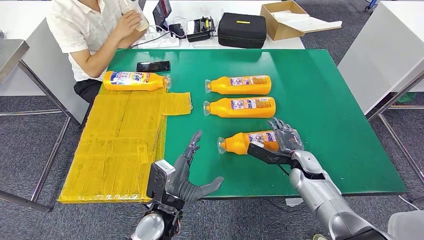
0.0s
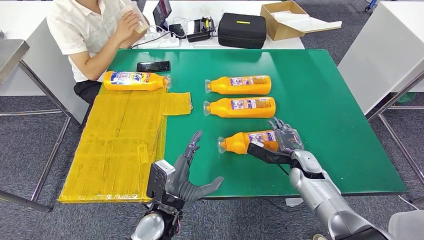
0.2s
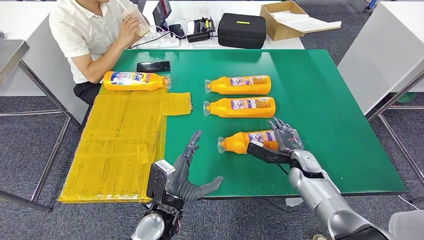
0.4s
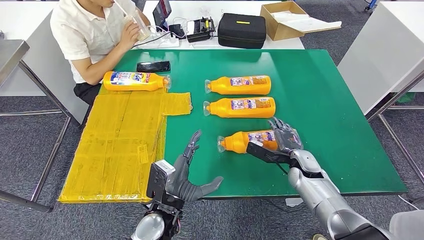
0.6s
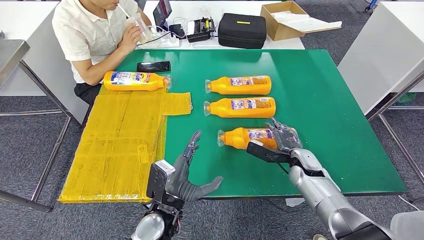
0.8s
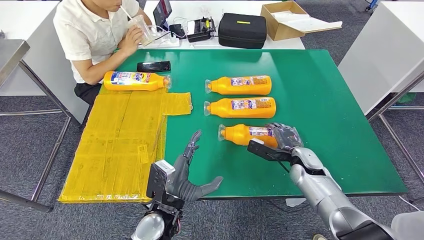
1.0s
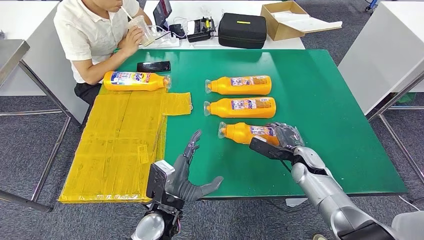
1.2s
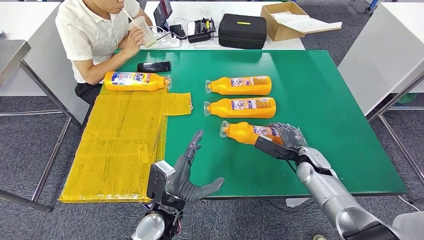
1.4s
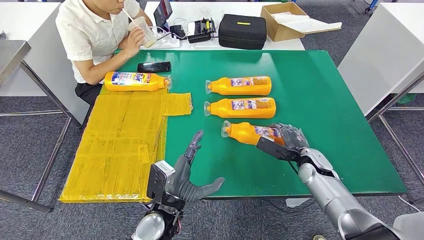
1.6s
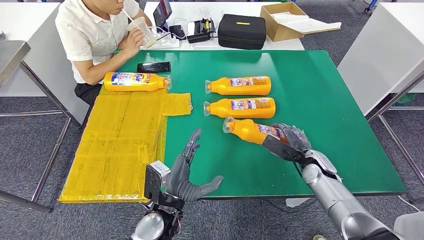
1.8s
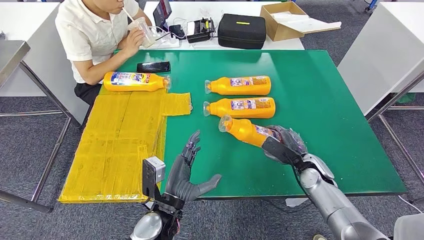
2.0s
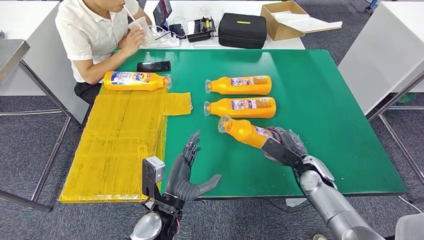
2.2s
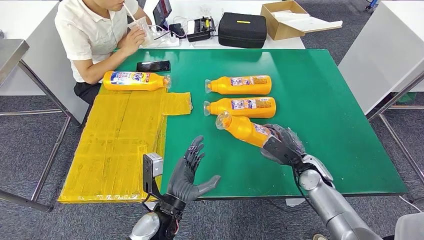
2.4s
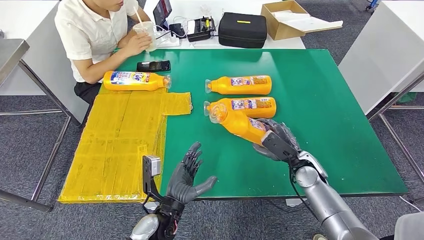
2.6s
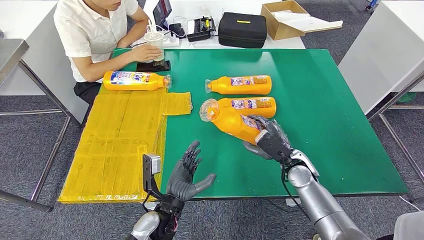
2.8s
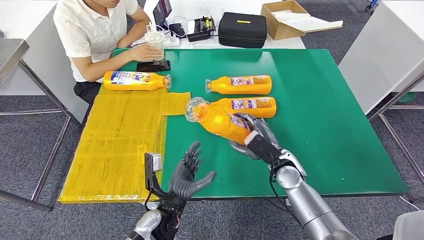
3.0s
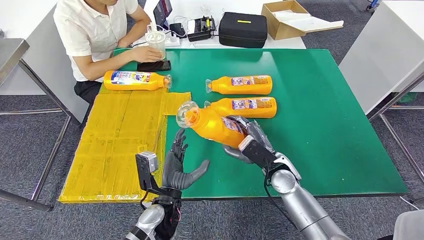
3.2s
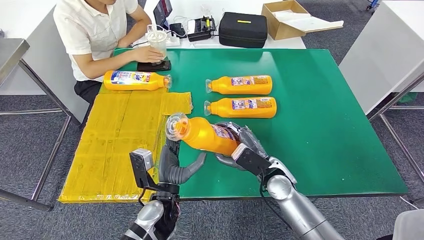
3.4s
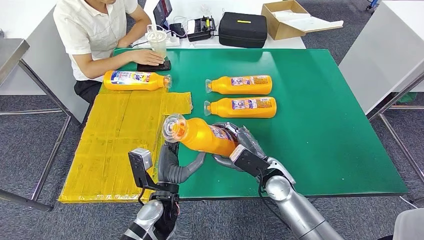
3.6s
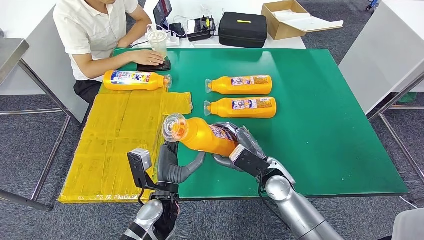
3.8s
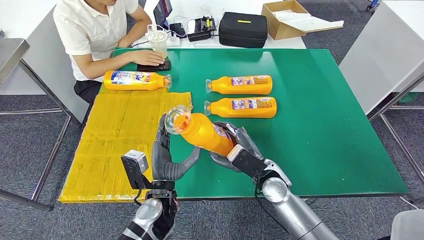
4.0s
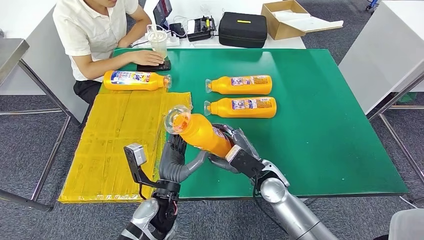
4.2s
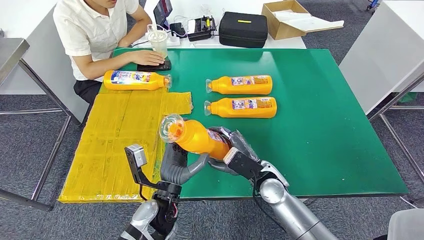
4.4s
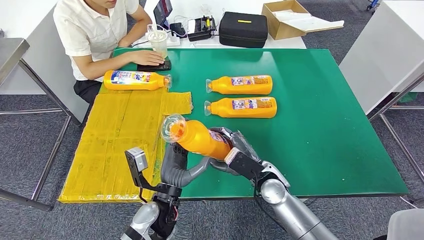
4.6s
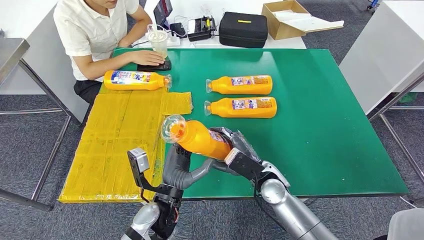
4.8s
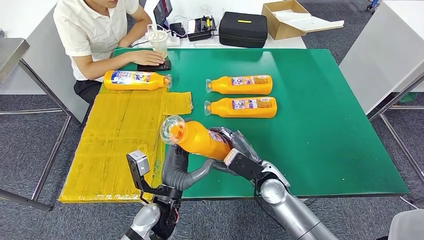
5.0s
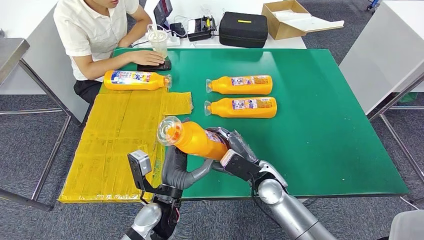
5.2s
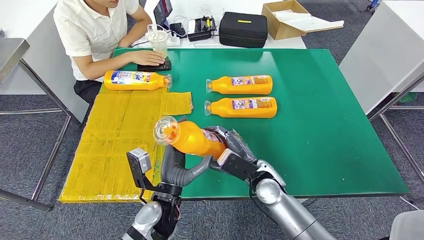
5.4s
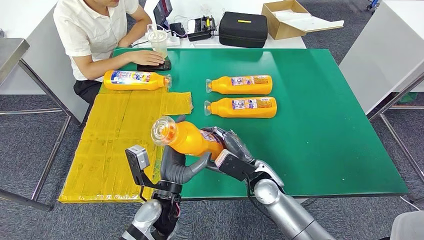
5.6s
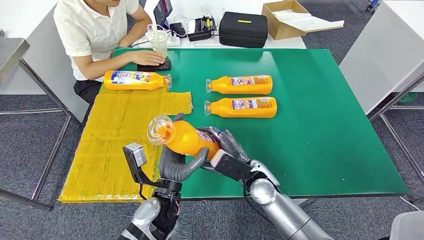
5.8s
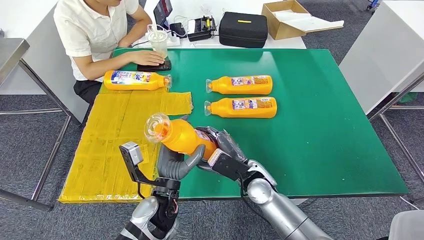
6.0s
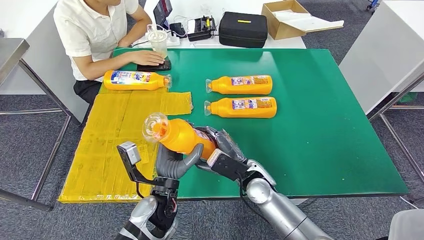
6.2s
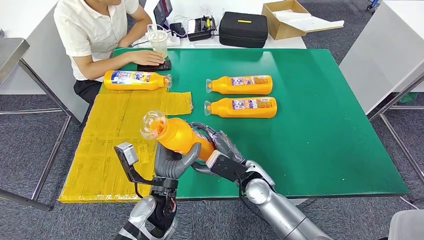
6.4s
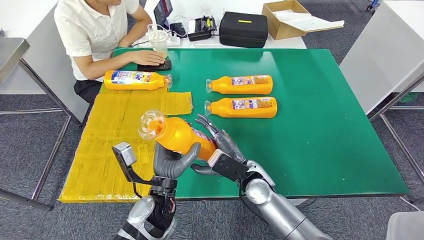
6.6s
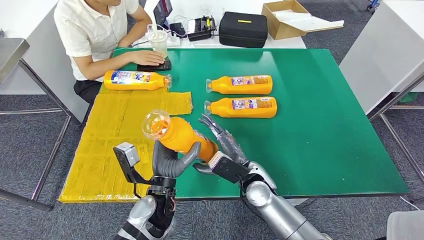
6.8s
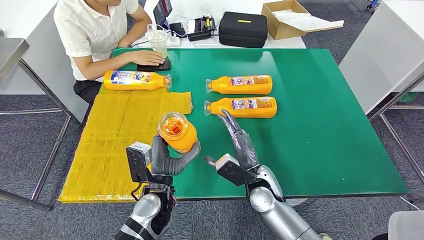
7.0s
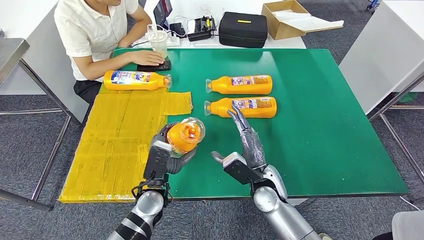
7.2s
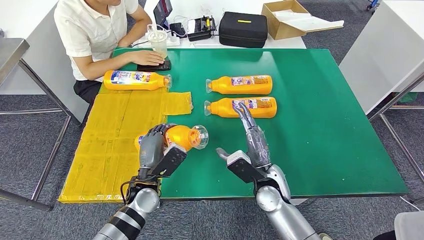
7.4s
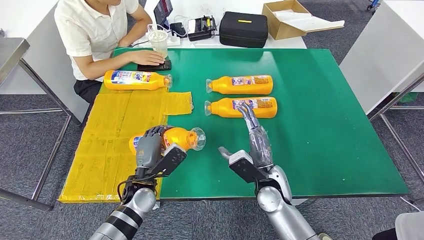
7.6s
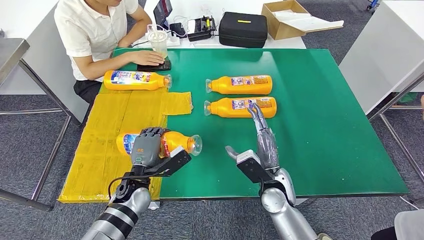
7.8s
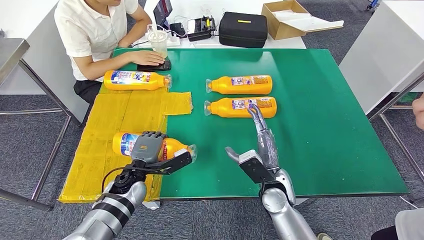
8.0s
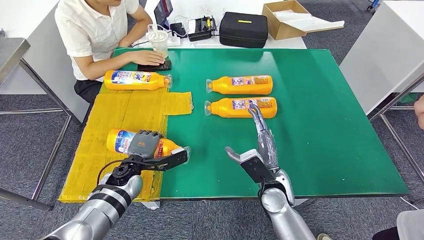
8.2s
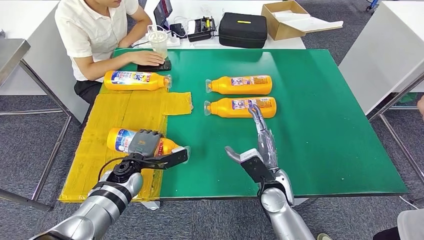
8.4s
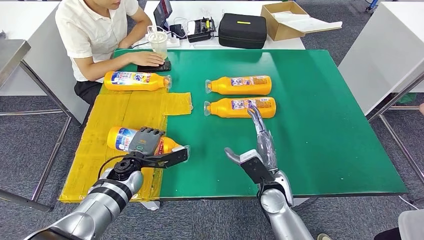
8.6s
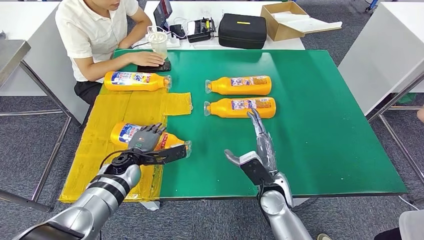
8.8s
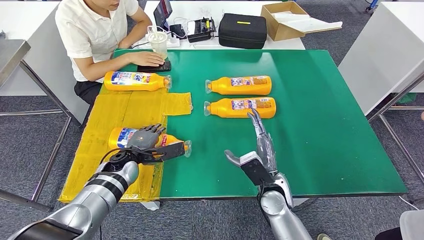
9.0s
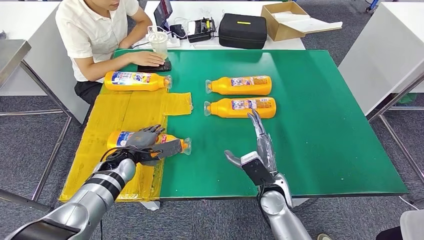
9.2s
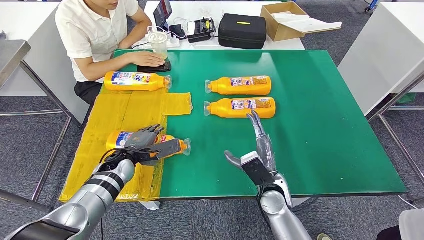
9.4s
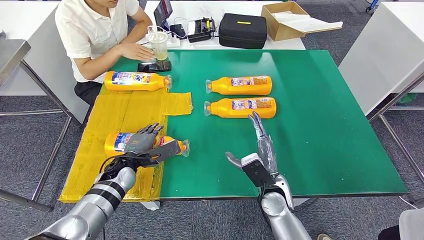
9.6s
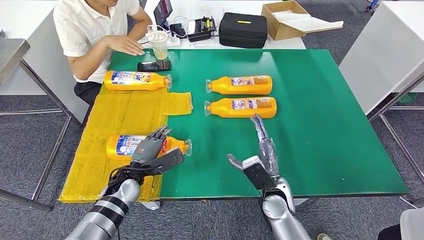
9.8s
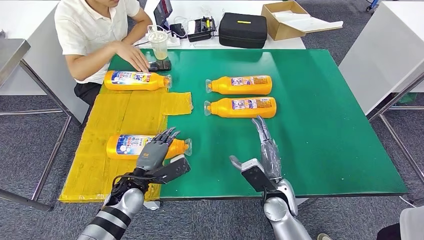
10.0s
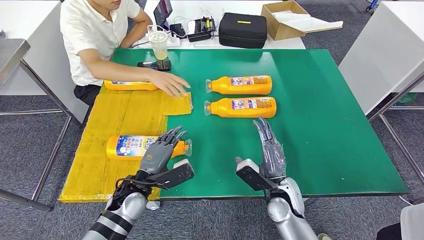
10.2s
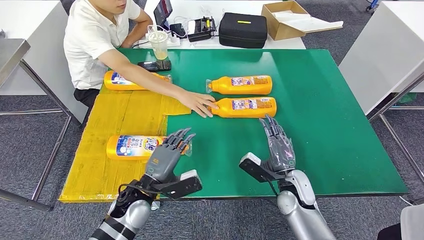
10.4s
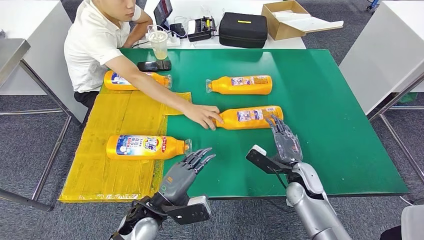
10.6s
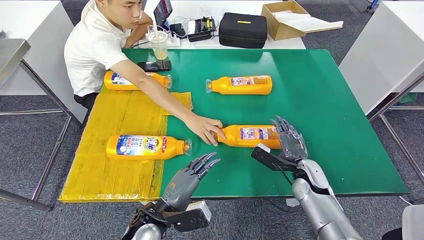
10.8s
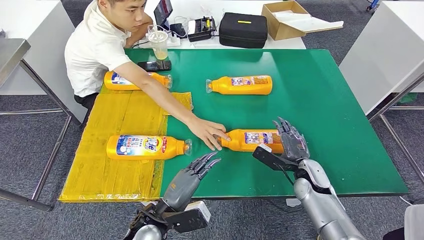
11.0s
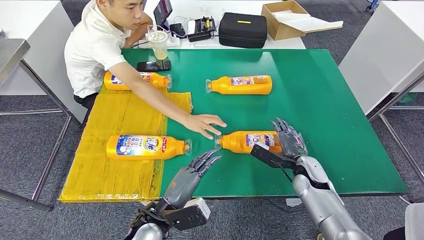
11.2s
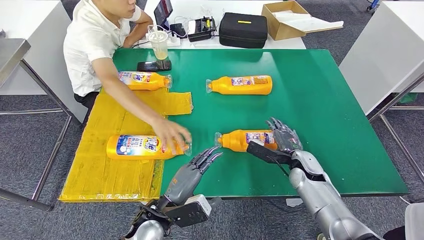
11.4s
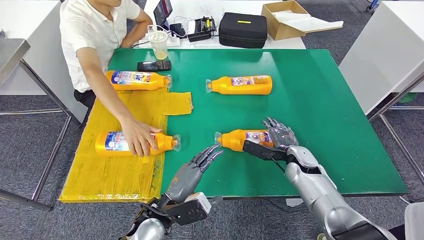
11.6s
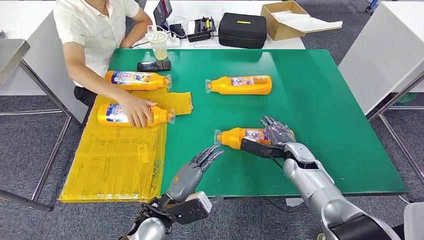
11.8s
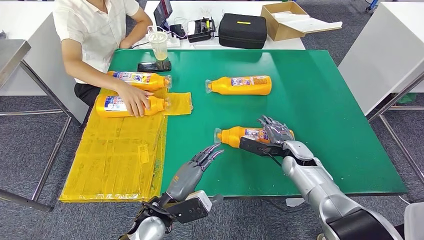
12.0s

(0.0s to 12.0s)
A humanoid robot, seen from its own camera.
Step, 0.0s - 4.0s: Pick up the fast-moving consumer goods bottle from the table.
Step, 4.2s - 9.0s: Flip the fast-moving consumer goods bottle to the front side.
0.0s - 1.6s: The hands stay close to where they were, moving slightly.
1.6s - 3.0s: The right hand shifts some 10 cm to the left.
3.0s - 4.4s: The right hand moves to the left, about 5 cm.
4.4s - 6.0s: The hands make only small movements.
6.0s - 7.6s: The left hand heads to the left and forward, covering about 10 cm.
7.6s - 9.0s: The left hand goes about 10 cm forward and to the left.

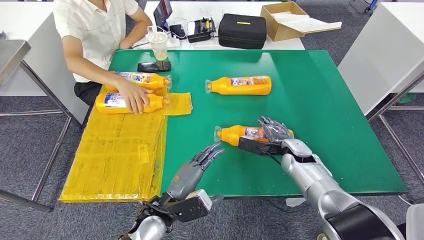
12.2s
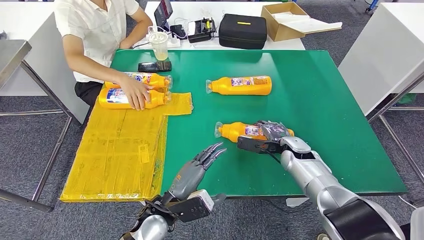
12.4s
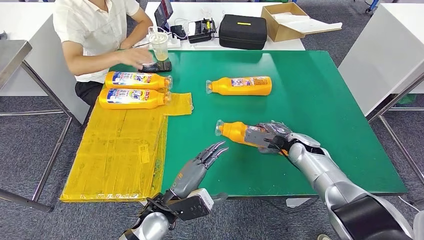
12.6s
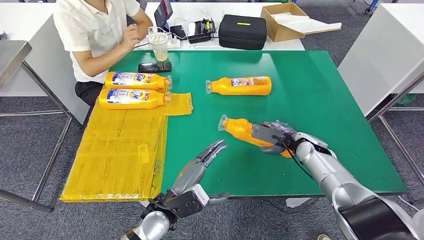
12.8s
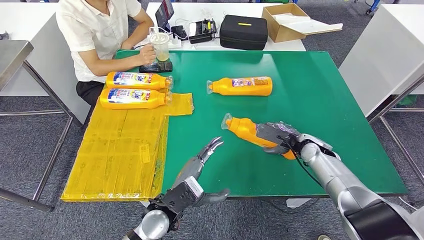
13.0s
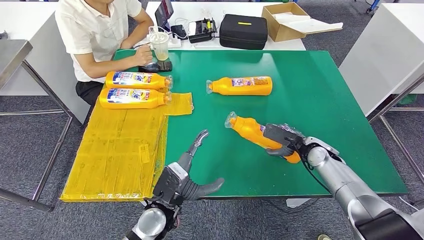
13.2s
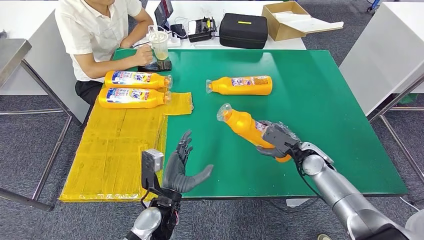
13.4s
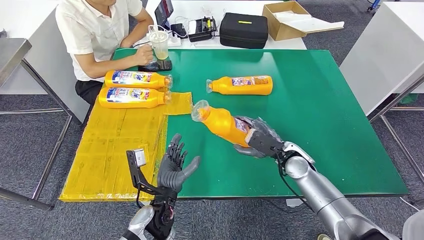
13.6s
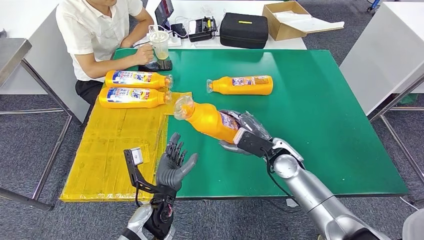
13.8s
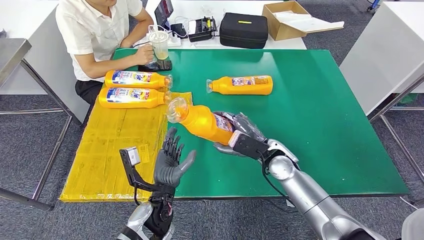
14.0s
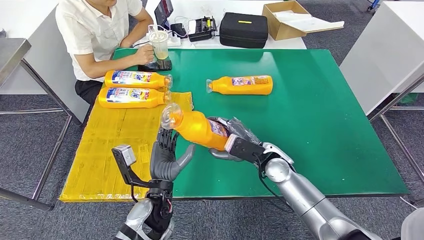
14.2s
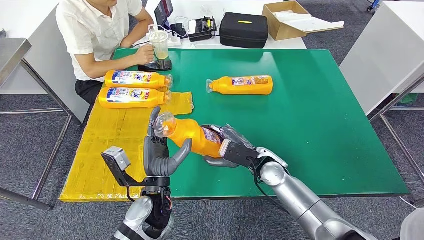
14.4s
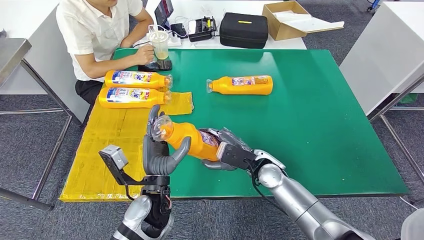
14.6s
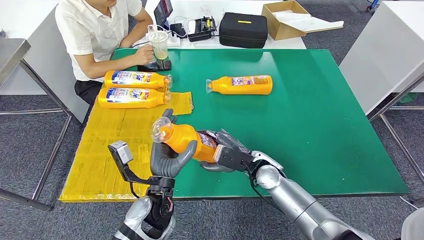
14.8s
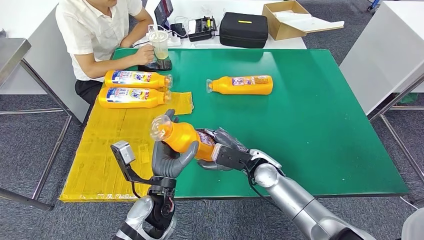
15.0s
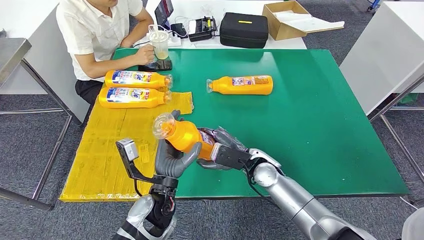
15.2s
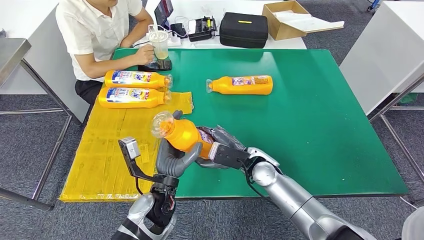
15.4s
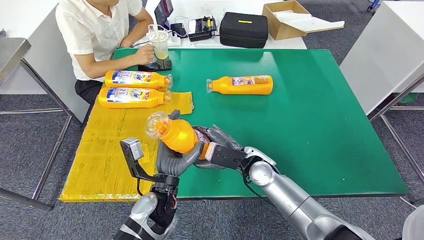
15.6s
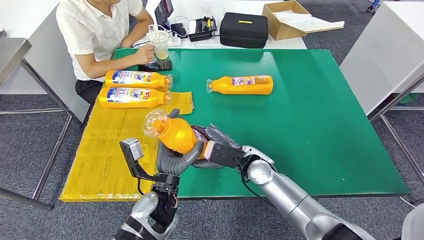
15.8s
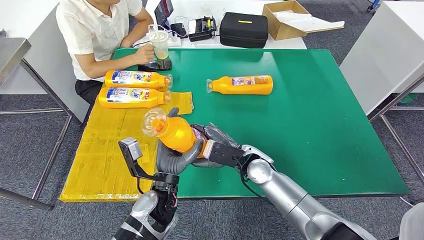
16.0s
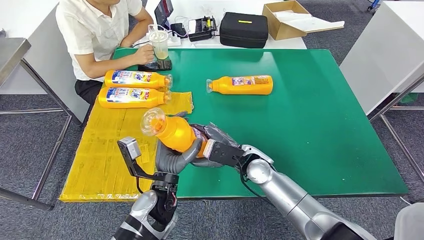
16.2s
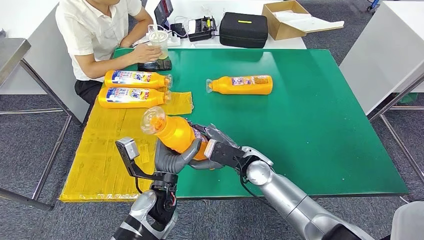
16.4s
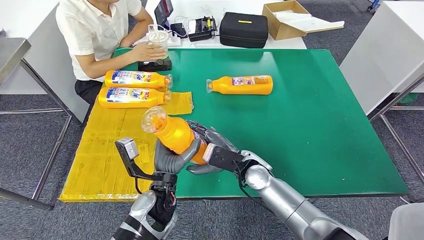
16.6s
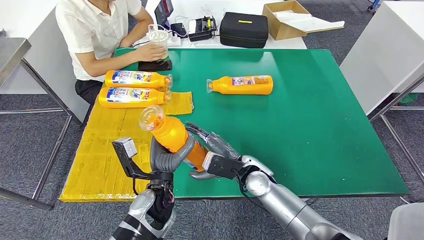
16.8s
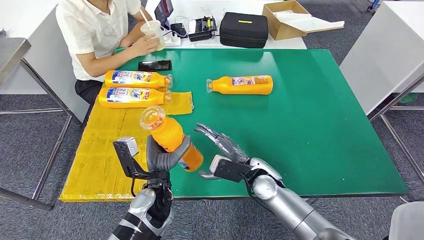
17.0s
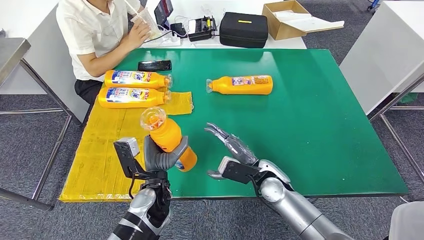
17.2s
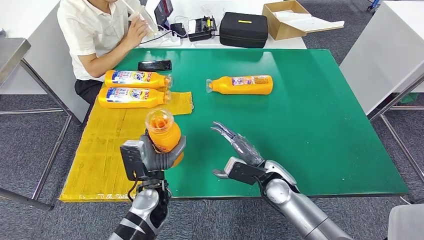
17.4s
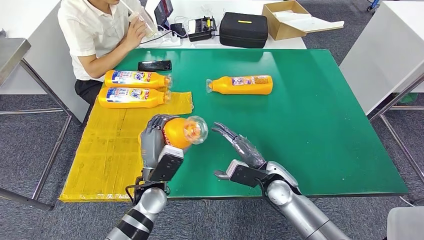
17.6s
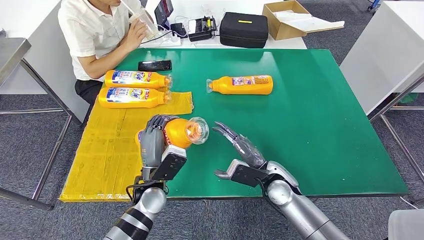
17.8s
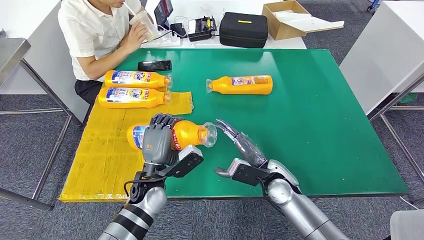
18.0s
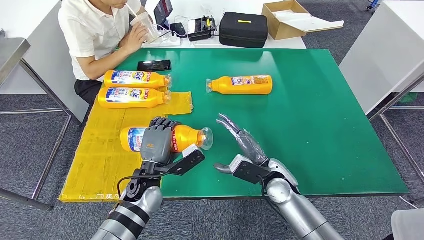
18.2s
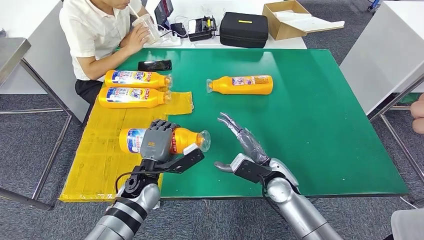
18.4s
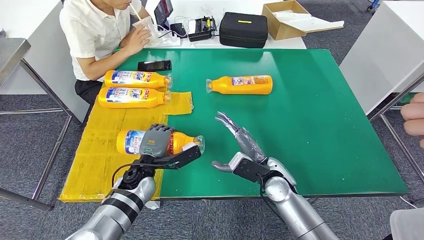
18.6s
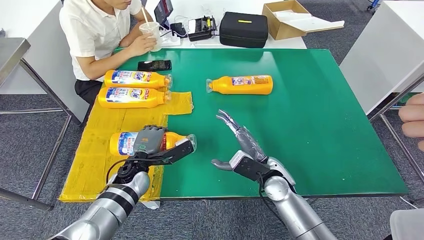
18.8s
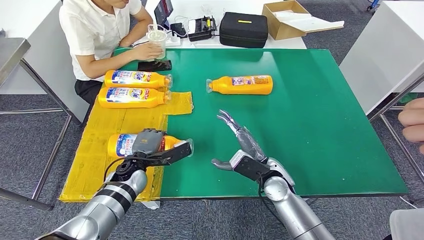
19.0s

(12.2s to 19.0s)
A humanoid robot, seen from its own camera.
13.6s - 15.0s: The right hand moves to the left, approximately 10 cm.
15.0s - 16.2s: The hands move only a little.
16.2s - 17.6s: The right hand travels to the right by approximately 5 cm.
17.6s - 19.0s: The left hand shifts roughly 10 cm forward and to the left.
